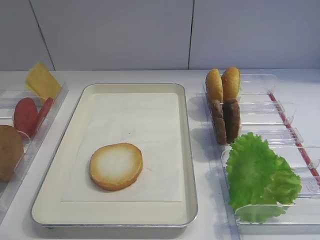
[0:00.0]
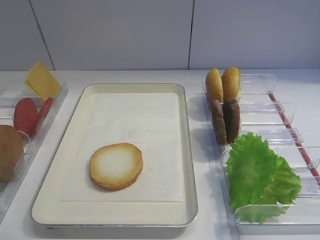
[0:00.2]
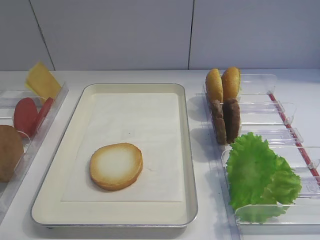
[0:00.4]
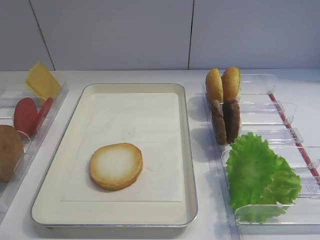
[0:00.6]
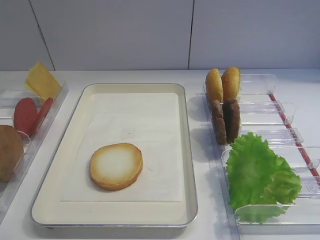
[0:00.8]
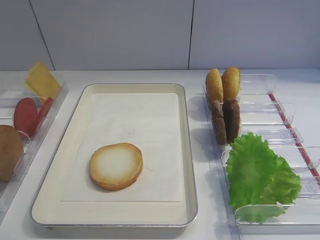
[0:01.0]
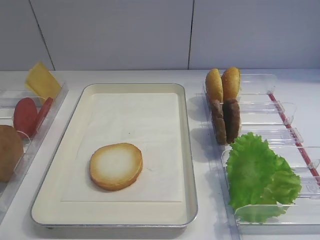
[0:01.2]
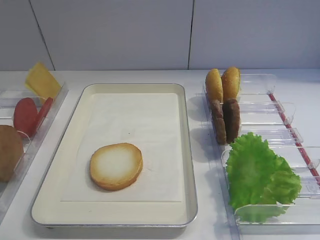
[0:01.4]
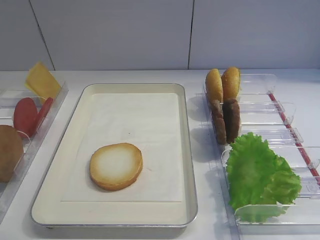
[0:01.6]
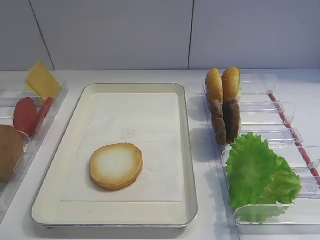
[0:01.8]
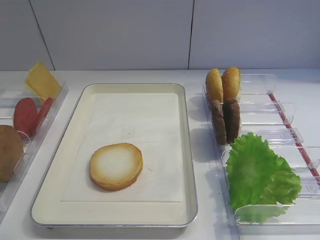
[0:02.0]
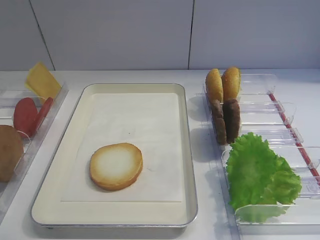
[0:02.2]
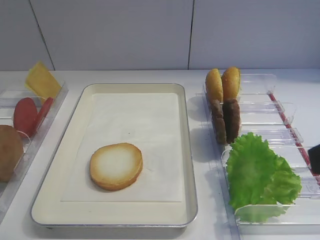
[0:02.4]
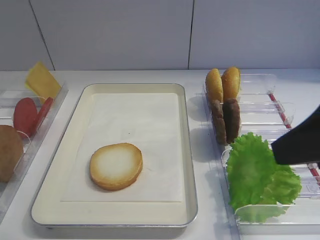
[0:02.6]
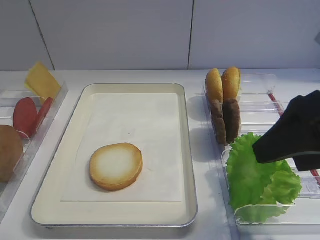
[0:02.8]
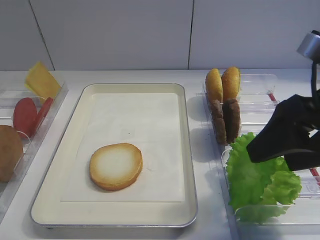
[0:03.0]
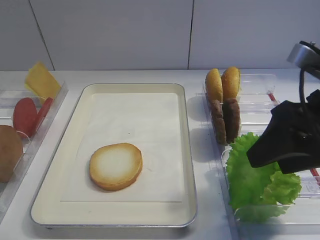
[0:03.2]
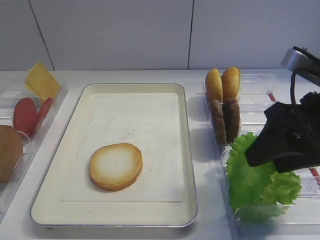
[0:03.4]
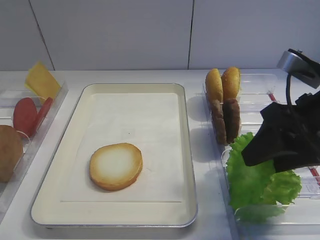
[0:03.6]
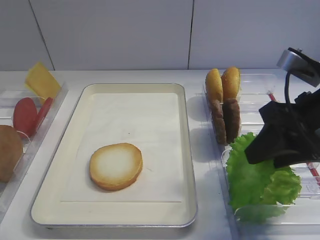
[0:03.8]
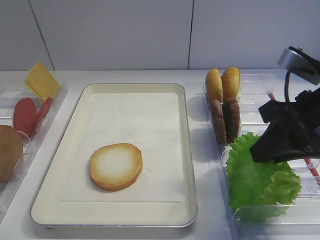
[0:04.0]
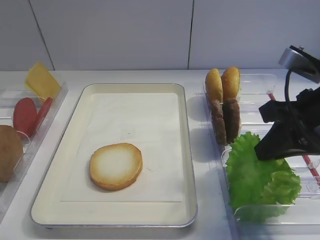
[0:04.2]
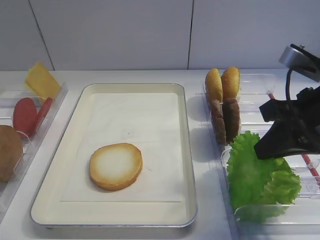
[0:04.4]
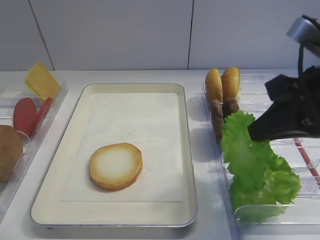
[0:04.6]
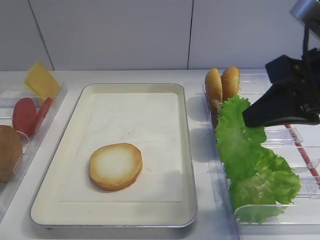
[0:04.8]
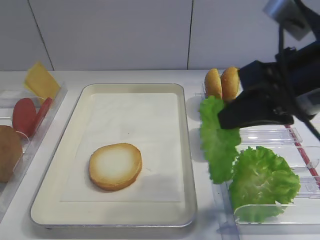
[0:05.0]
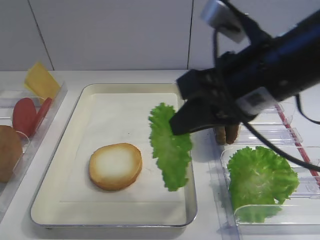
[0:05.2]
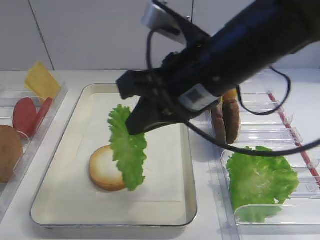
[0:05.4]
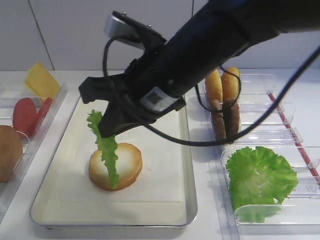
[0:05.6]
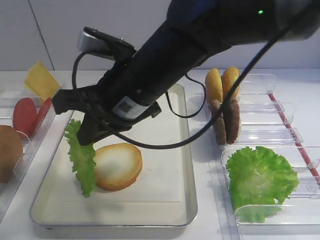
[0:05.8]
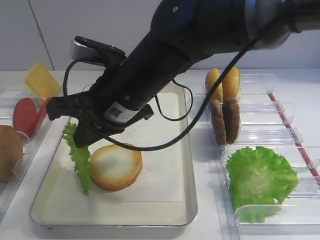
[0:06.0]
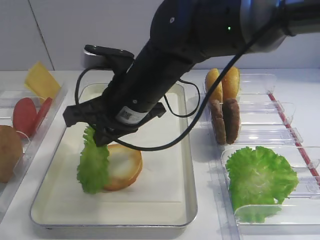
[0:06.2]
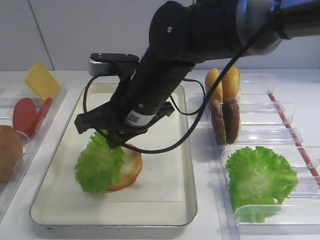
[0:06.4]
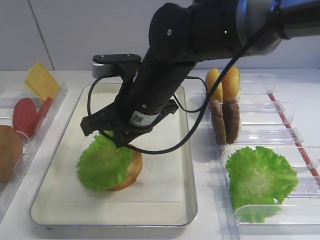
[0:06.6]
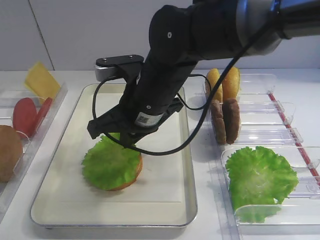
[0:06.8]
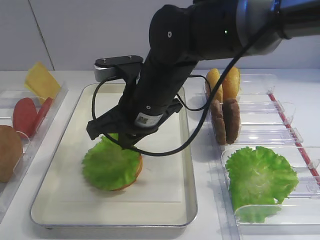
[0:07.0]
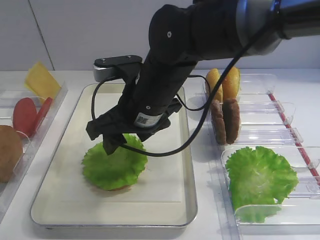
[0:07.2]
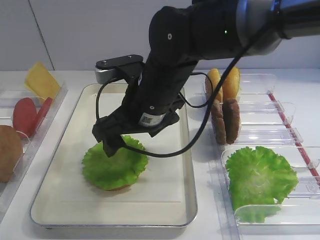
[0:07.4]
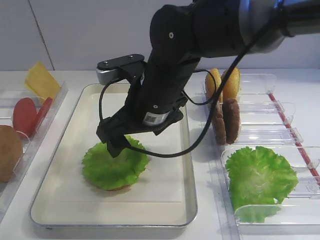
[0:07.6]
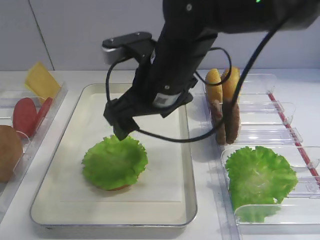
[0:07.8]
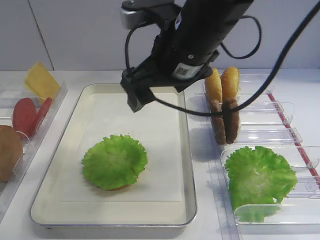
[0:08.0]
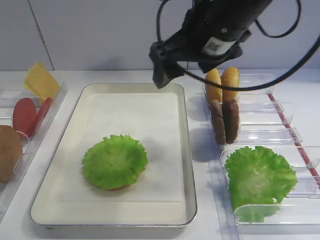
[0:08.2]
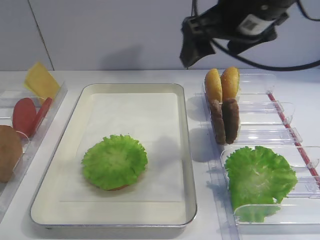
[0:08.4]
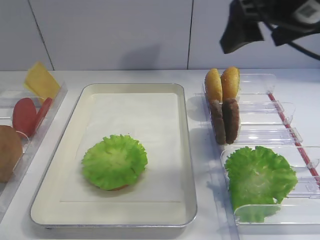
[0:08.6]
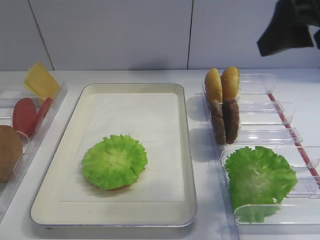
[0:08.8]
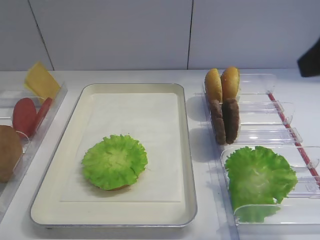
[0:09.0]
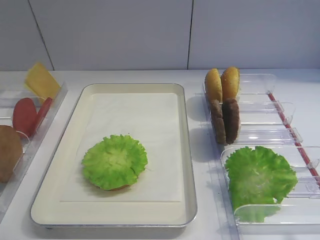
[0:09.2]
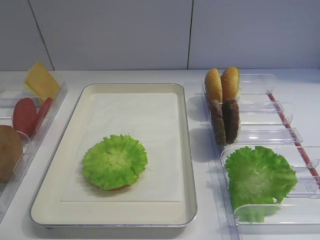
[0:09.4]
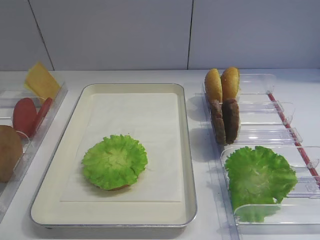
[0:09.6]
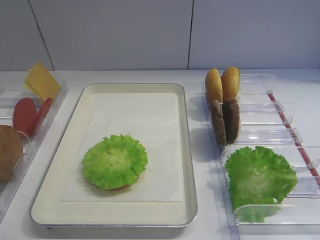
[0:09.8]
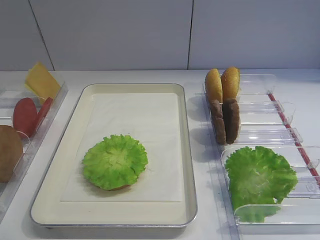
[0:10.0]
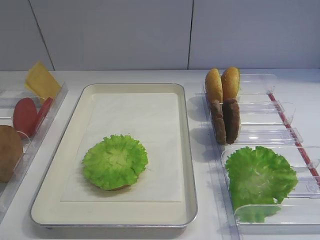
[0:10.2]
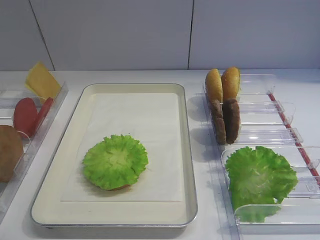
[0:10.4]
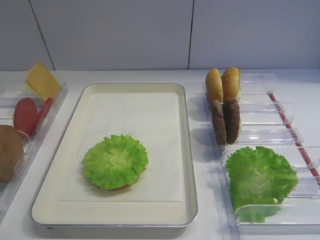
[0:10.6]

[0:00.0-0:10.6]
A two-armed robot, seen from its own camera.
Step, 0:00.0 to 0:04.6: Pick up the lettuce leaf with the right gripper.
Step, 0:04.8 to 0:07.8: Place the lettuce leaf on the bread slice with the right gripper.
0:01.6 to 0:03.0: The right gripper travels forward by some 15 cm.
0:03.0 to 0:04.6: The right gripper closes.
0:04.6 to 0:06.0: The right gripper goes approximately 25 cm to the left.
0:06.0 to 0:07.6: The right gripper opens up.
0:07.6 to 0:09.0: The right gripper is displaced to the right, upward and backward by roughly 30 cm.
0:09.0 to 0:10.6: The right gripper moves backward and downward, about 20 cm.

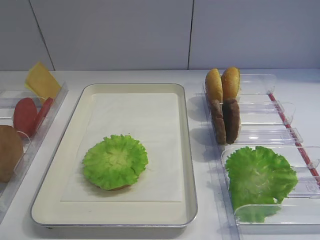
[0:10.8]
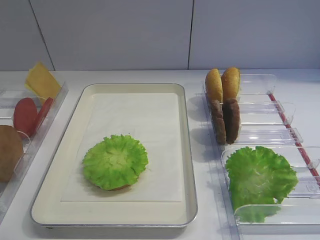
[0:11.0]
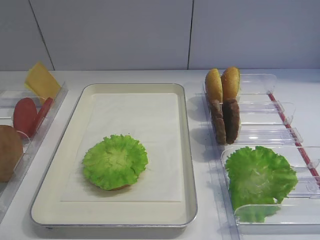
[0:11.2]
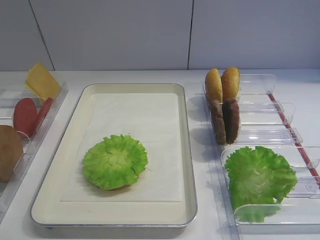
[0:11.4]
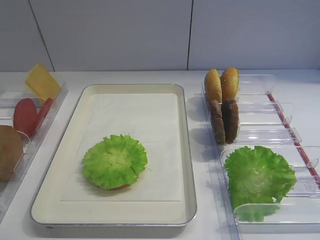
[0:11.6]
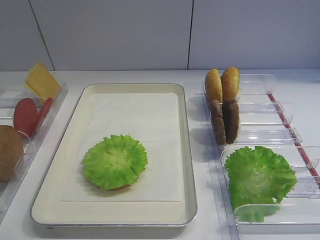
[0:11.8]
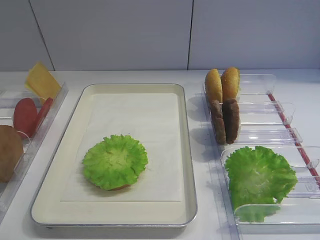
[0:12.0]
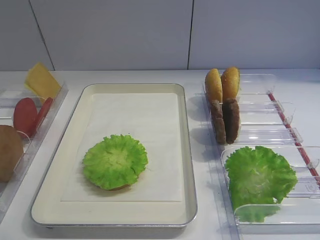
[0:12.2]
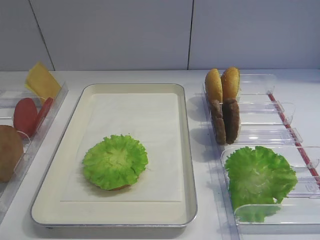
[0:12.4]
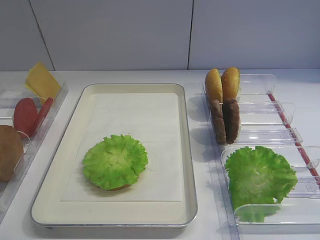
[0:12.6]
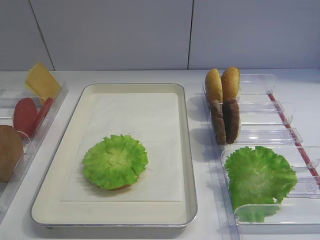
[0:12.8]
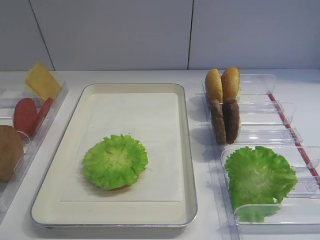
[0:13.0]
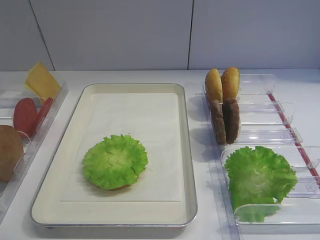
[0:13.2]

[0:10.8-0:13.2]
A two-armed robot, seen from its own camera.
0:10.8 to 0:13.2: The two grippers keep their place.

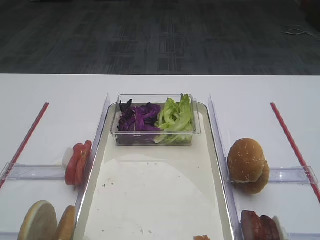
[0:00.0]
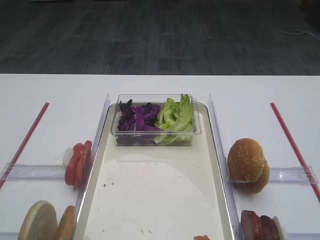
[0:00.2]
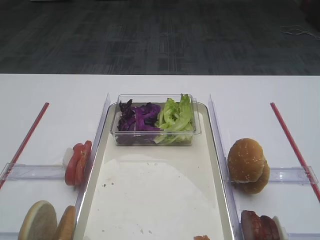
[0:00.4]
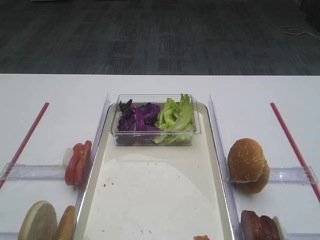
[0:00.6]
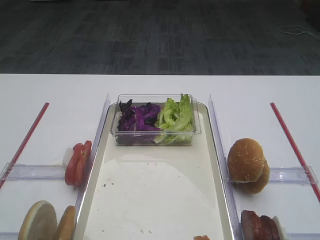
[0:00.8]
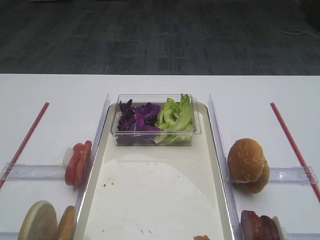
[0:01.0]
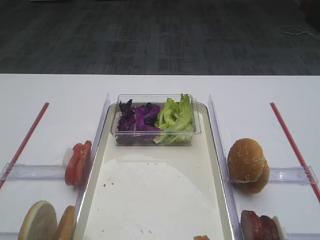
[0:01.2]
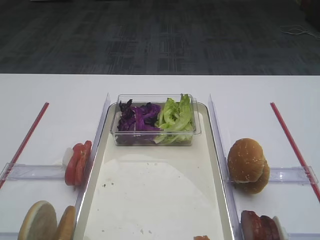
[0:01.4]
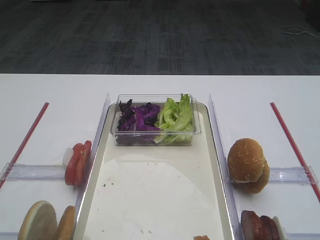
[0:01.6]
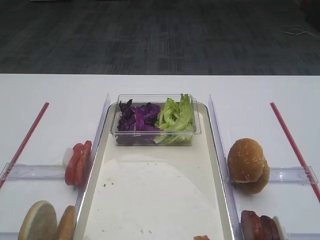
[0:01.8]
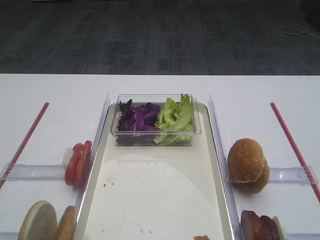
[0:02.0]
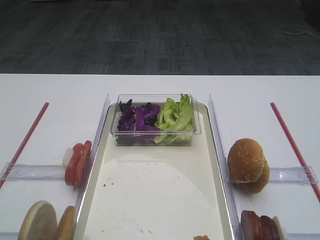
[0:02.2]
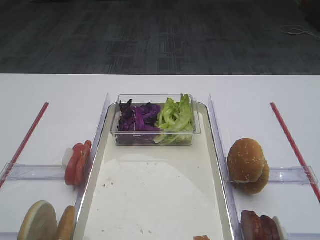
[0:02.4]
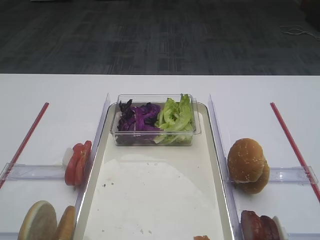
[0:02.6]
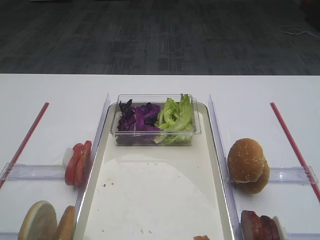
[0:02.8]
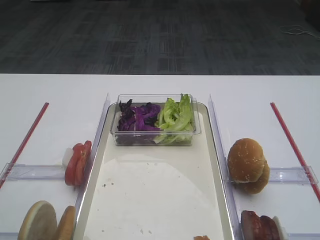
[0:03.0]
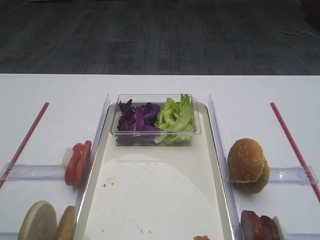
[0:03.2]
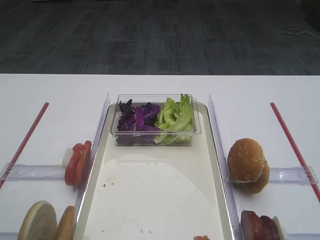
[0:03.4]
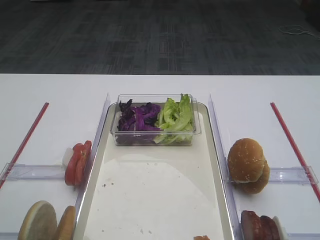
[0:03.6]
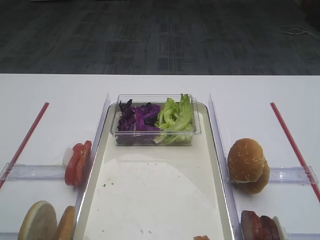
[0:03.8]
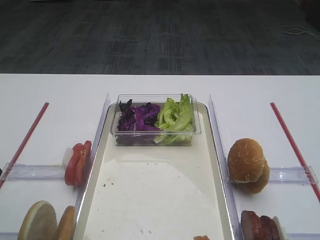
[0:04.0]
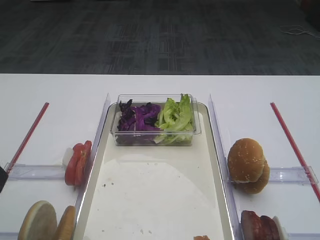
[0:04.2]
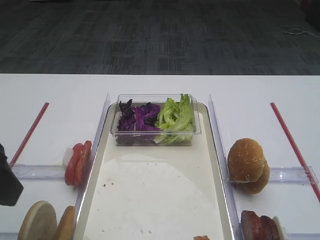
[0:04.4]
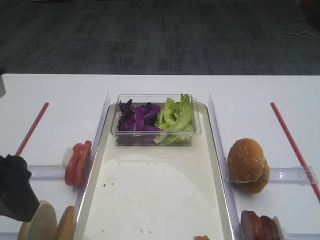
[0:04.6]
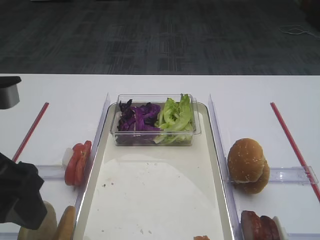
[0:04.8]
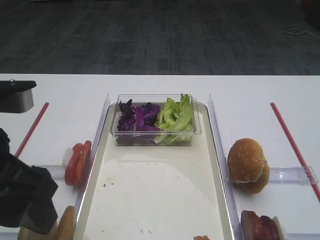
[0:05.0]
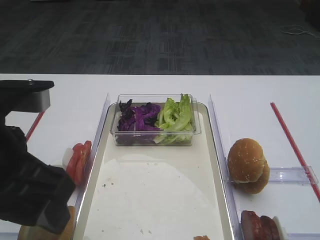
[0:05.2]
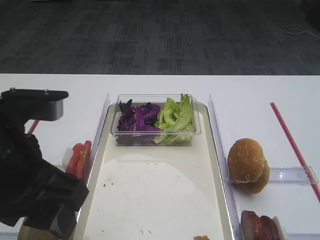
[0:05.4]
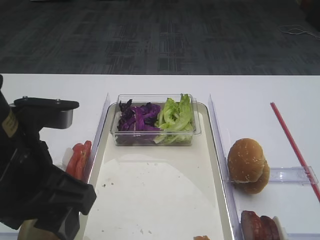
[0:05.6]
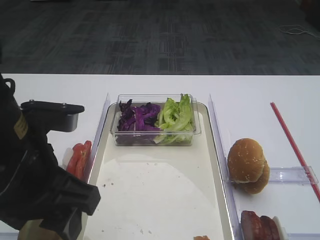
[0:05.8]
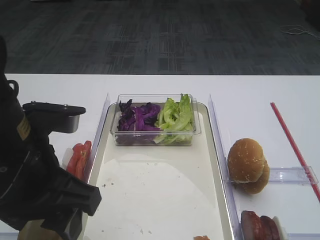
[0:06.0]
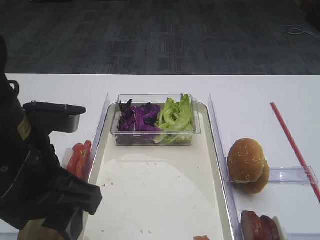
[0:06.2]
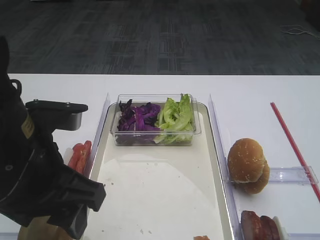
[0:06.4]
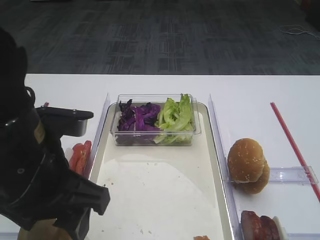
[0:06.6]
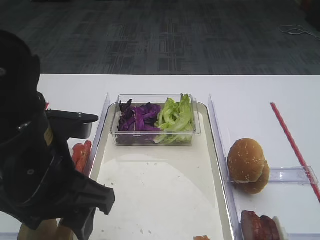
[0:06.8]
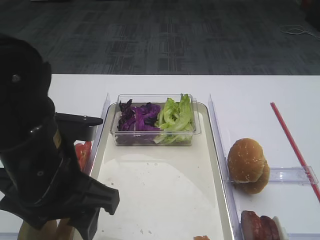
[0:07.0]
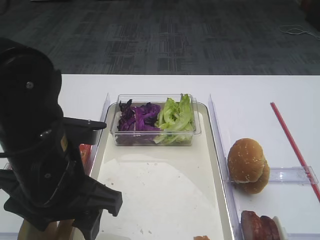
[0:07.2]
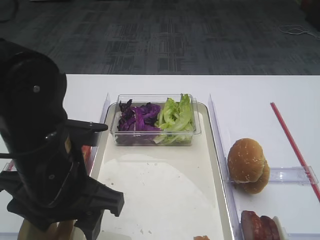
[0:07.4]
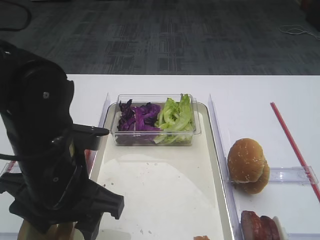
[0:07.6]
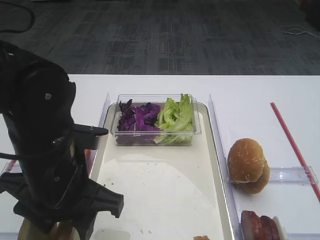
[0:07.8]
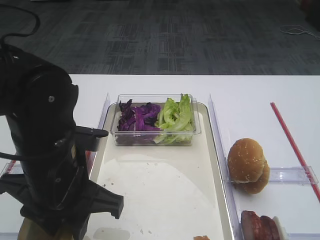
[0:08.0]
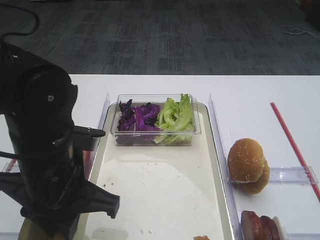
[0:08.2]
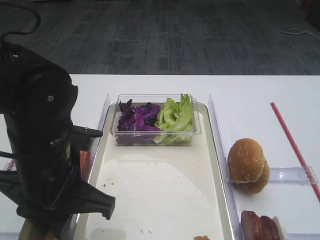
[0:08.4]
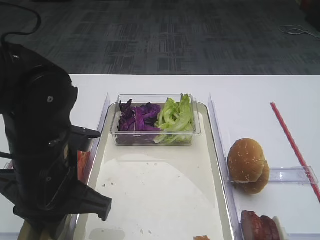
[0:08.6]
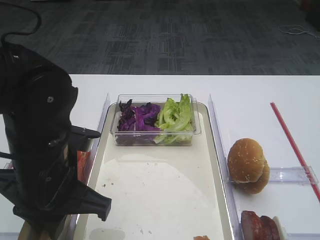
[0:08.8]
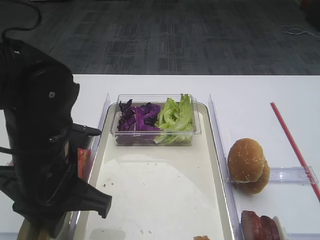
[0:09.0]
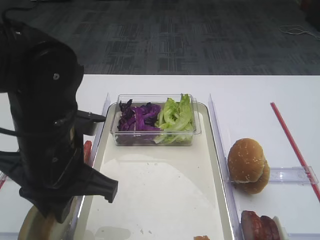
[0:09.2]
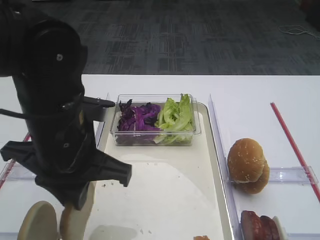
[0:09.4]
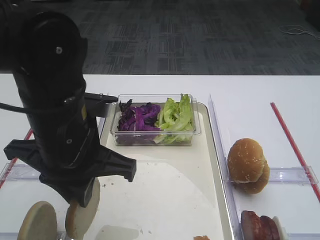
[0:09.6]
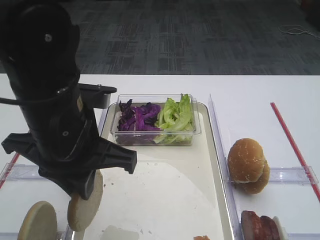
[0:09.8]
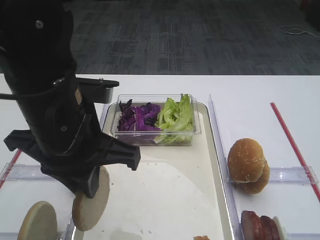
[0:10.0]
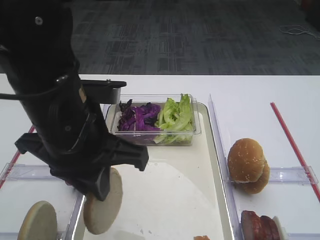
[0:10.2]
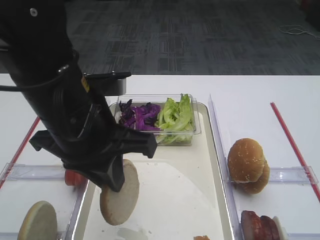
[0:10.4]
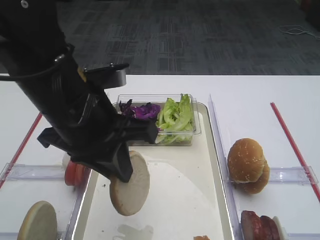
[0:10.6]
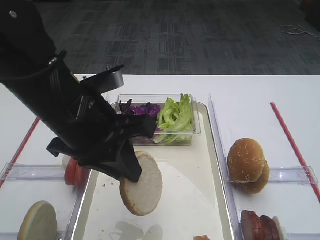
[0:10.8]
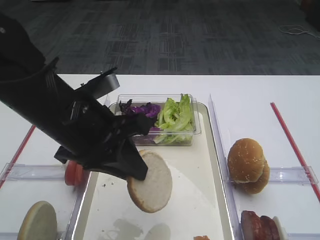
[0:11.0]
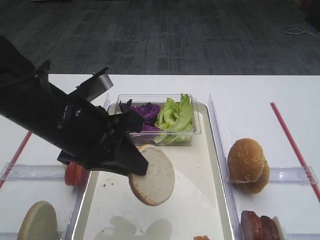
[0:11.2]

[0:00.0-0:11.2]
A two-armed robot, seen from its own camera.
Step, 0:00.0 to 0:09.8: Pick up the bread slice with the left gripper.
0:03.2 to 0:04.8: The left gripper shifts some 5 cm to the right.
0:04.8 to 0:06.4: The left gripper shifts approximately 5 cm to the right.
0:06.4 to 0:08.0: The left gripper goes some 5 cm downward, and closes.
0:08.0 to 0:09.6: The left gripper closes.
